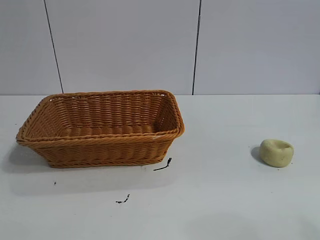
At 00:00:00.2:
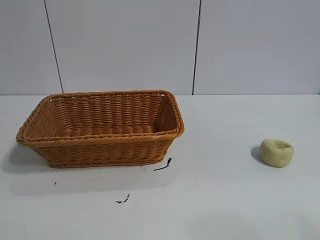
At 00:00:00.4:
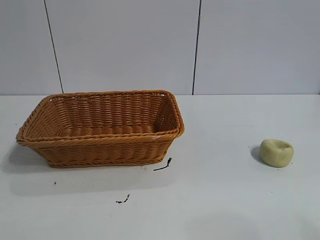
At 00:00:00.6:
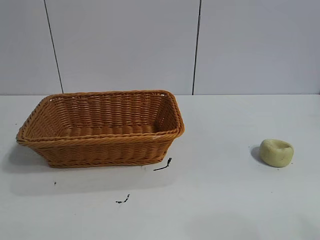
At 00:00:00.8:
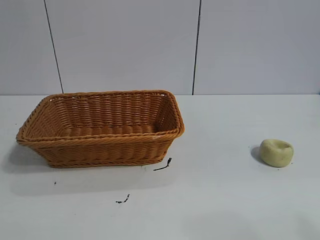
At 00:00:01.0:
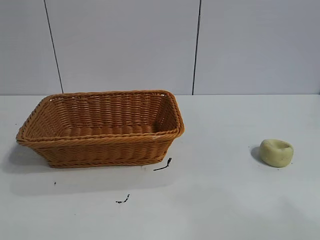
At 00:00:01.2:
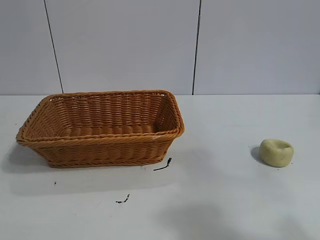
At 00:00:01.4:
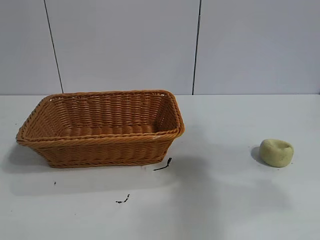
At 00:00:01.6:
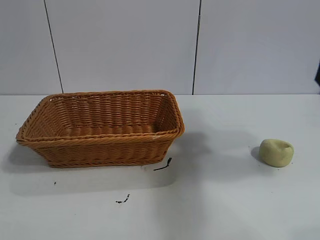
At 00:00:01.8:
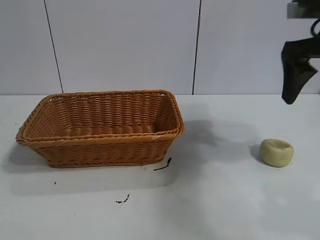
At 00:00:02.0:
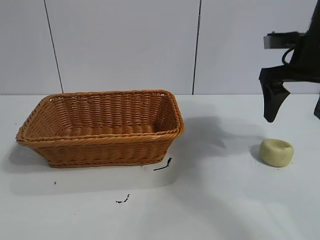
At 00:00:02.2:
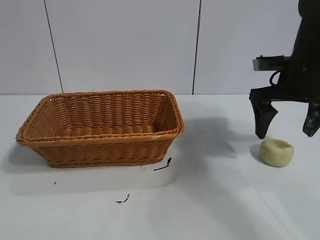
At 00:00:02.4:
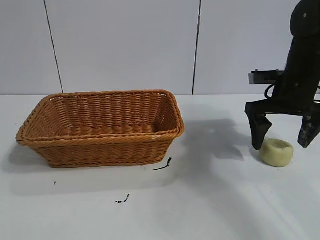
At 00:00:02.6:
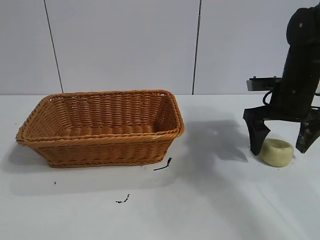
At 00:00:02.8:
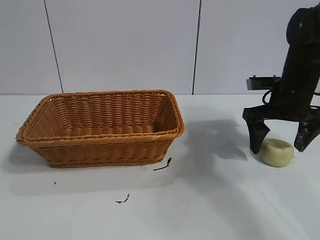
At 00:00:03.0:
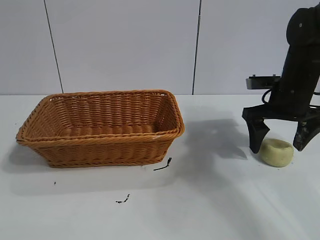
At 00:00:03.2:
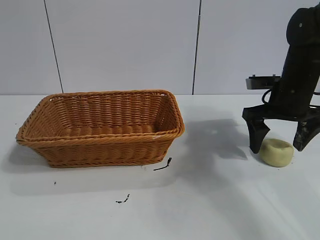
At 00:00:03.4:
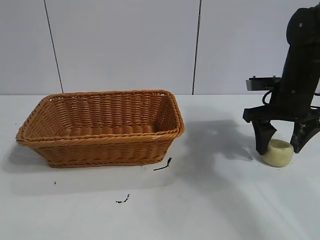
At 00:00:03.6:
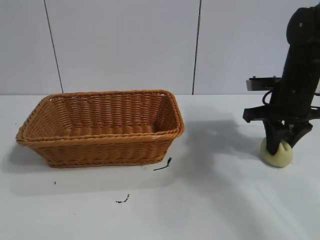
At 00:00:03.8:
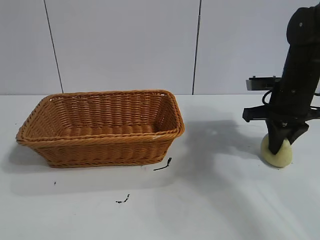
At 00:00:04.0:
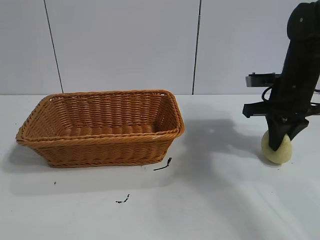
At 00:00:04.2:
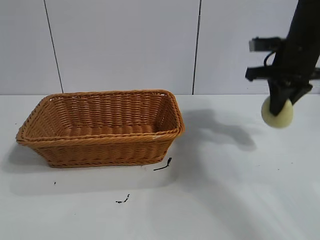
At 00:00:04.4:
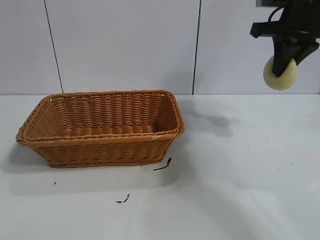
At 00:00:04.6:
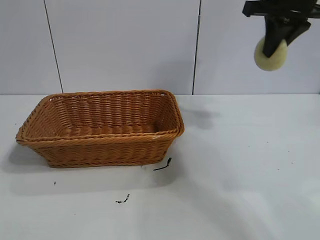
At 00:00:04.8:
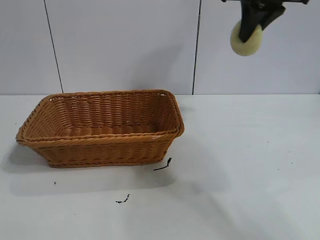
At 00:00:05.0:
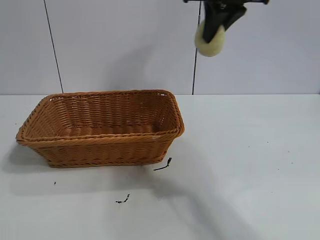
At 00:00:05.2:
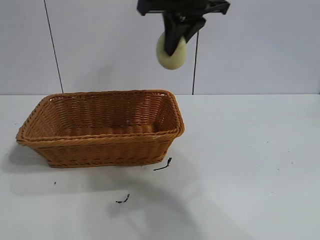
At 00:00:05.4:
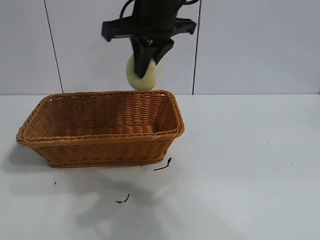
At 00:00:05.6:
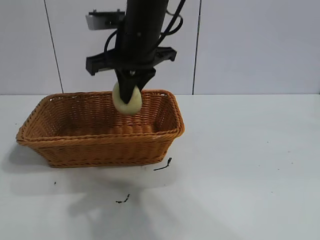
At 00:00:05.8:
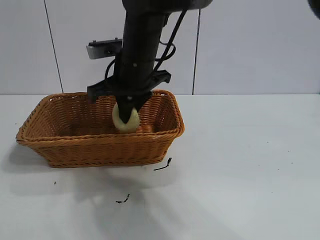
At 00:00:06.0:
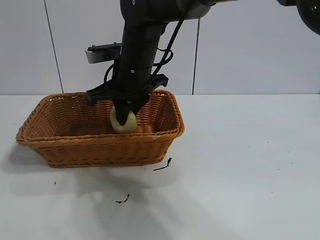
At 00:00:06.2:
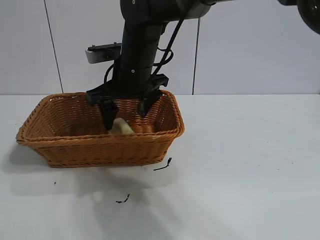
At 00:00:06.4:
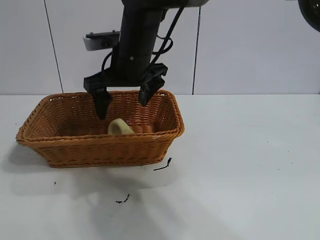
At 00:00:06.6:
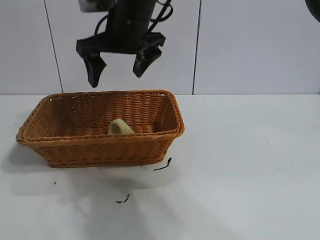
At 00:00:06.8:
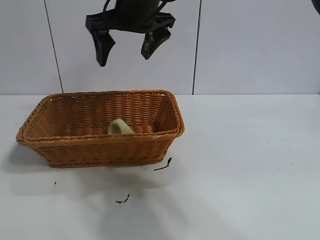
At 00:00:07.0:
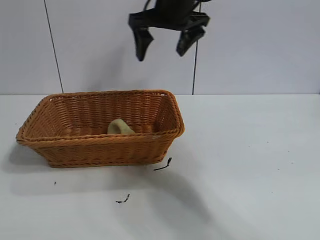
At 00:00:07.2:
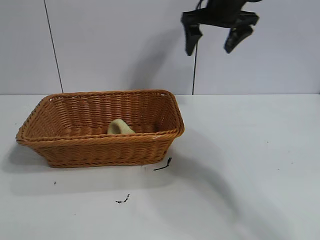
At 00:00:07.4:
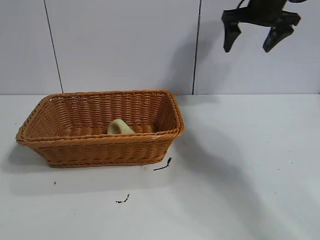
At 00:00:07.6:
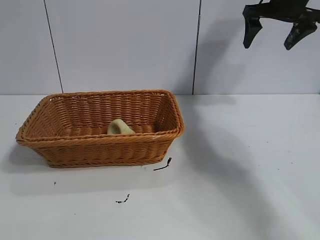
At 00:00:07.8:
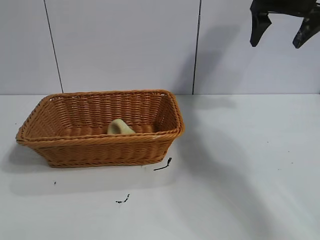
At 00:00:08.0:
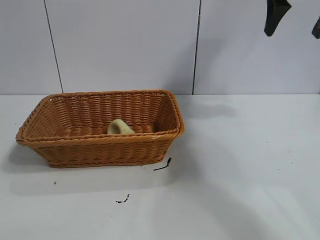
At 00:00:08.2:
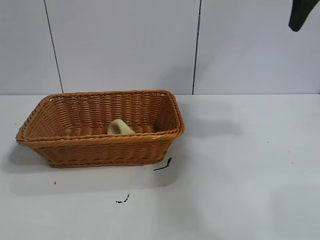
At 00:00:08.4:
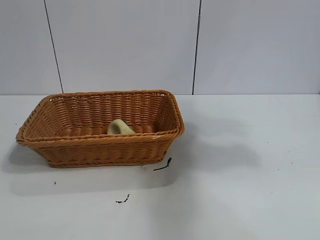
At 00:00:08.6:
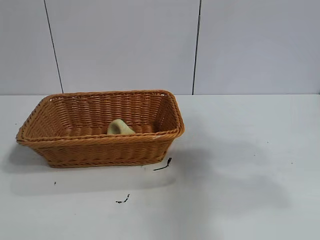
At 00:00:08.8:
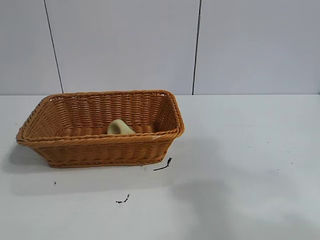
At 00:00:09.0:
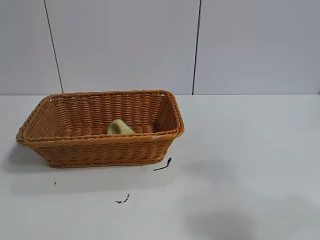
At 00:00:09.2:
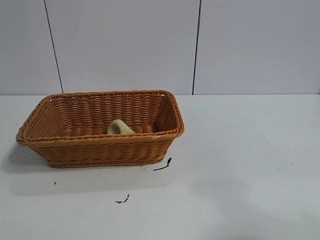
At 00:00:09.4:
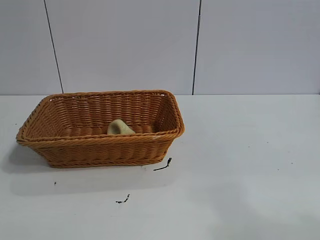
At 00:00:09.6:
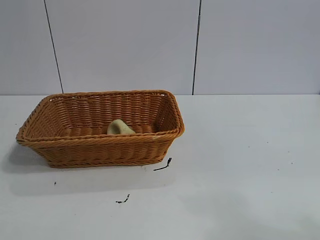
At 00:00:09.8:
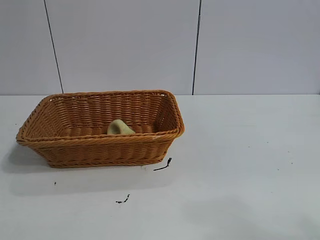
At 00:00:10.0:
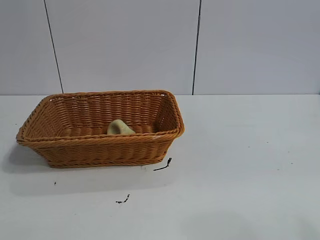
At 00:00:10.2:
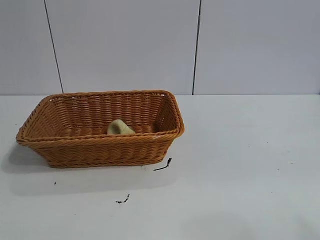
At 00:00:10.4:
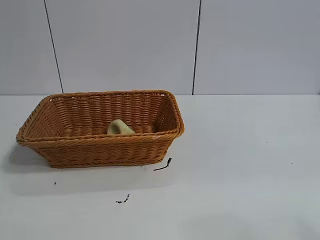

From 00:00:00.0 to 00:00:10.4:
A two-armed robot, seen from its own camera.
Task of the whole recording: pick up the egg yolk pastry and put it into the basket.
Step, from 00:00:00.8 to 00:00:03.4: Grasp egg yolk pastry with right gripper.
Step, from 00:00:03.8 to 00:00:06.2: Place the egg yolk pastry in the basket with right gripper.

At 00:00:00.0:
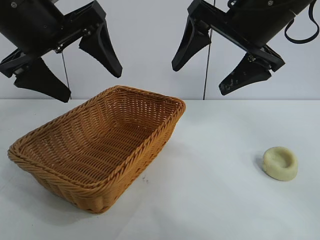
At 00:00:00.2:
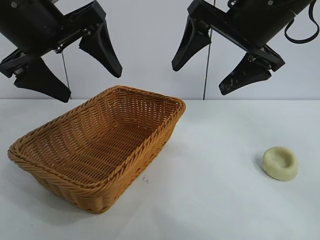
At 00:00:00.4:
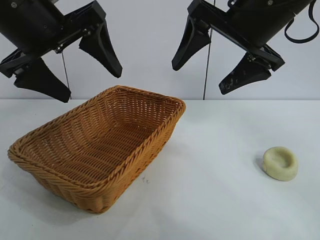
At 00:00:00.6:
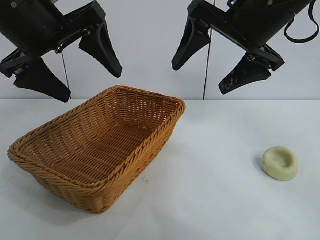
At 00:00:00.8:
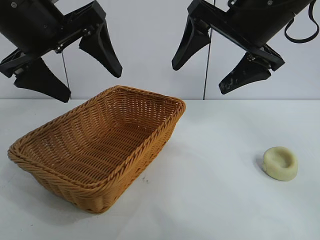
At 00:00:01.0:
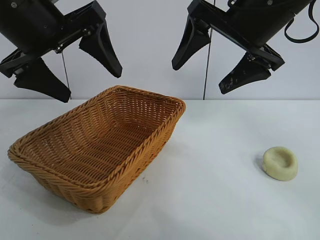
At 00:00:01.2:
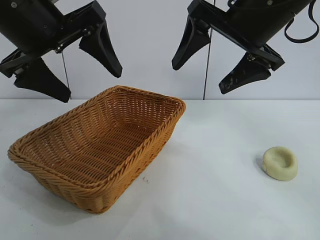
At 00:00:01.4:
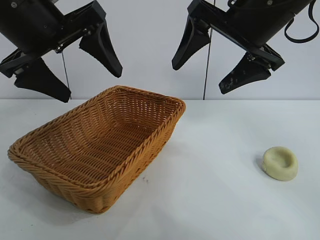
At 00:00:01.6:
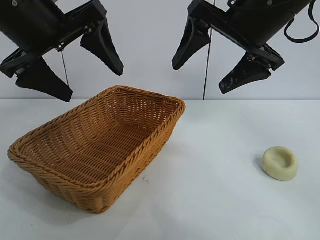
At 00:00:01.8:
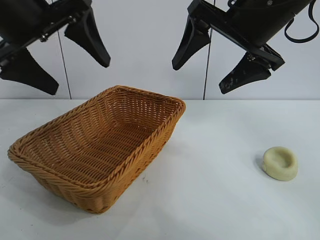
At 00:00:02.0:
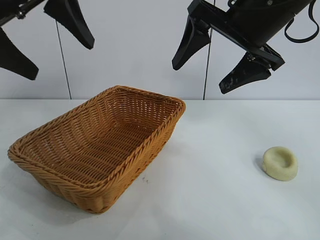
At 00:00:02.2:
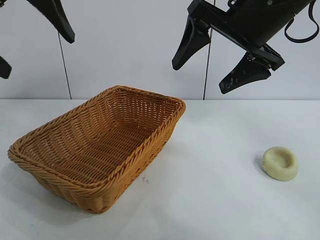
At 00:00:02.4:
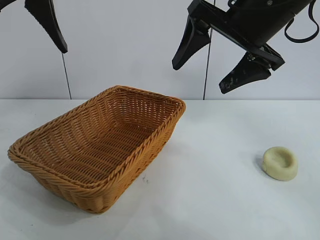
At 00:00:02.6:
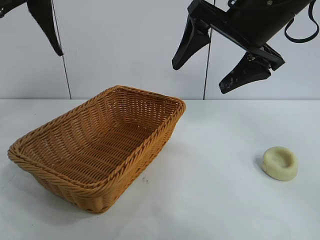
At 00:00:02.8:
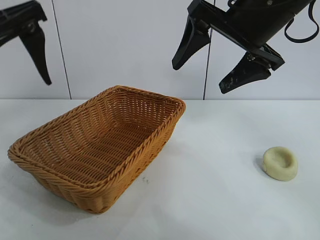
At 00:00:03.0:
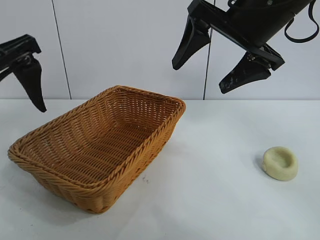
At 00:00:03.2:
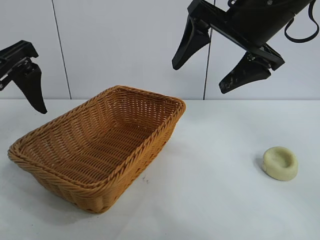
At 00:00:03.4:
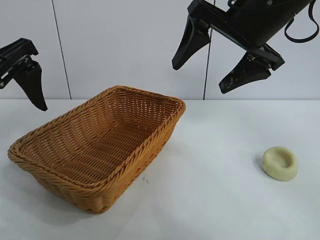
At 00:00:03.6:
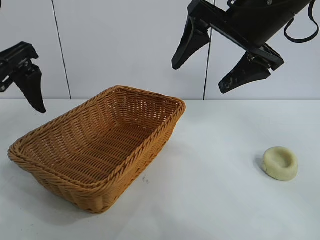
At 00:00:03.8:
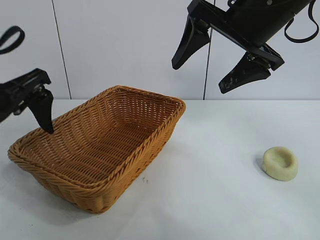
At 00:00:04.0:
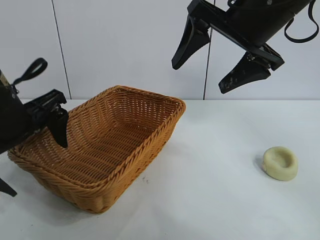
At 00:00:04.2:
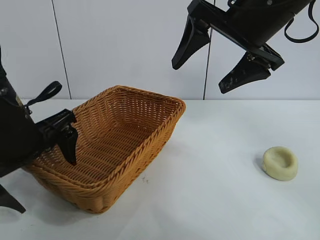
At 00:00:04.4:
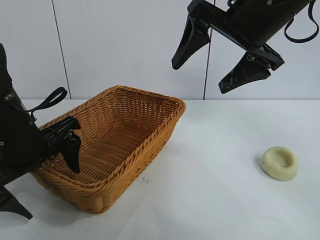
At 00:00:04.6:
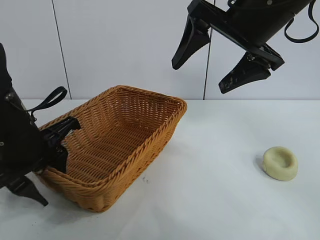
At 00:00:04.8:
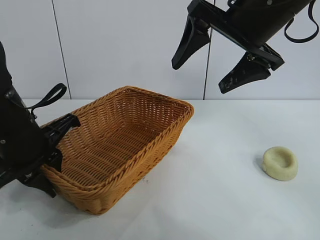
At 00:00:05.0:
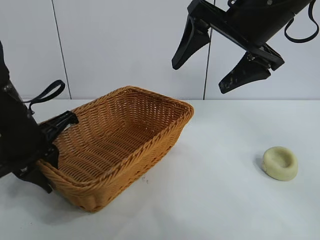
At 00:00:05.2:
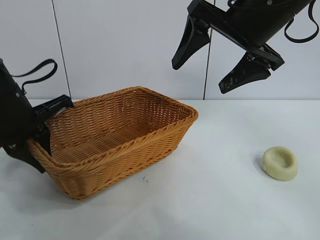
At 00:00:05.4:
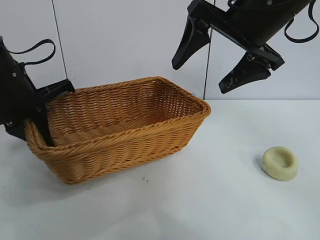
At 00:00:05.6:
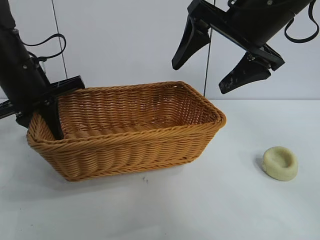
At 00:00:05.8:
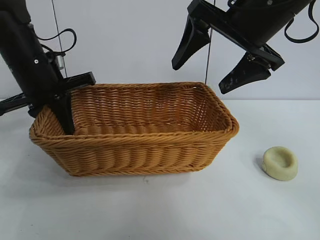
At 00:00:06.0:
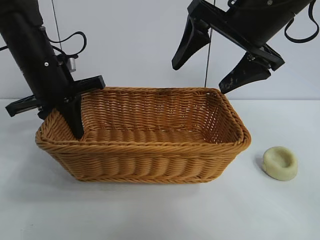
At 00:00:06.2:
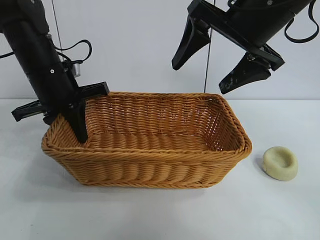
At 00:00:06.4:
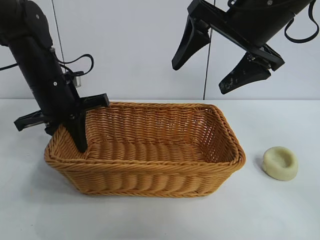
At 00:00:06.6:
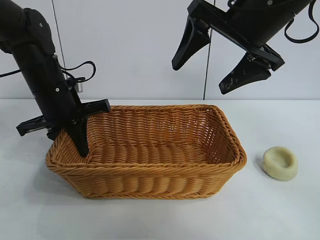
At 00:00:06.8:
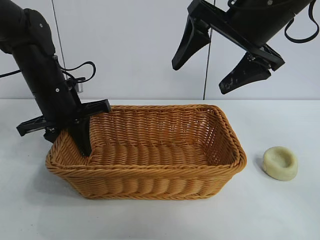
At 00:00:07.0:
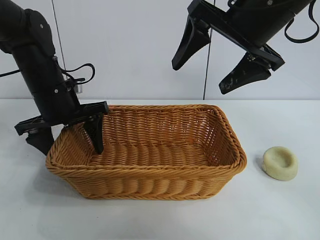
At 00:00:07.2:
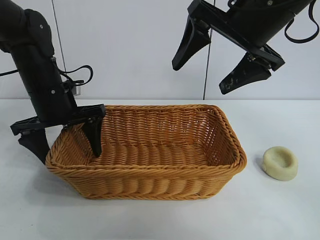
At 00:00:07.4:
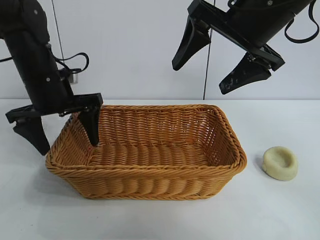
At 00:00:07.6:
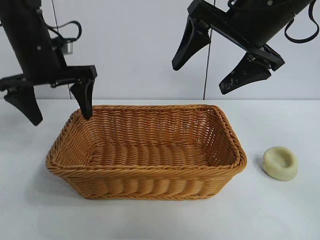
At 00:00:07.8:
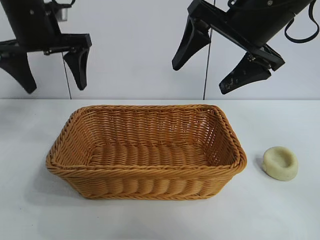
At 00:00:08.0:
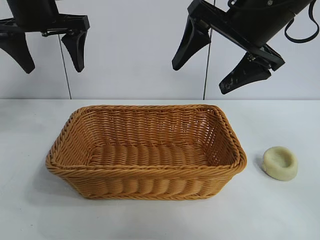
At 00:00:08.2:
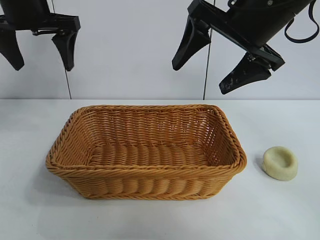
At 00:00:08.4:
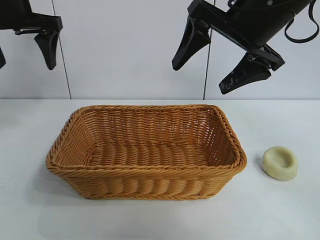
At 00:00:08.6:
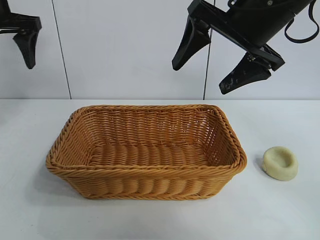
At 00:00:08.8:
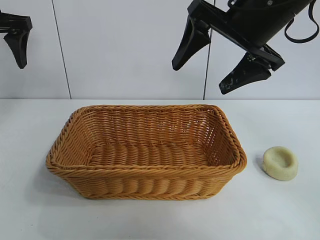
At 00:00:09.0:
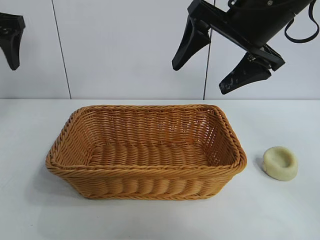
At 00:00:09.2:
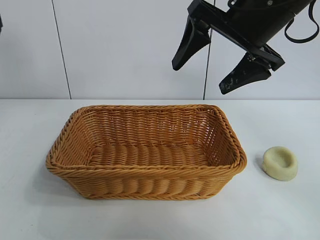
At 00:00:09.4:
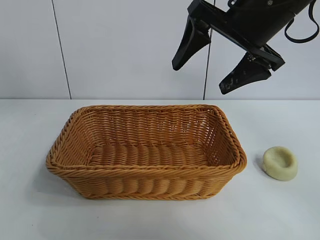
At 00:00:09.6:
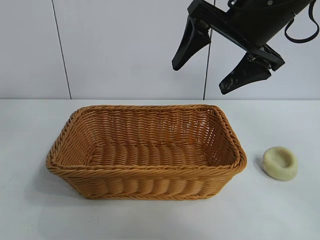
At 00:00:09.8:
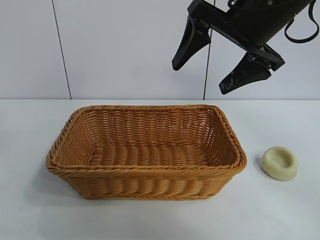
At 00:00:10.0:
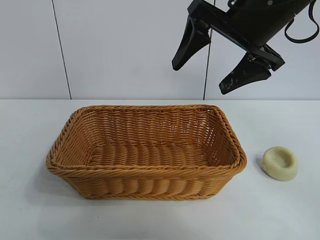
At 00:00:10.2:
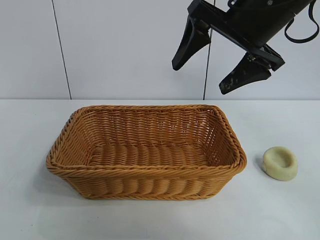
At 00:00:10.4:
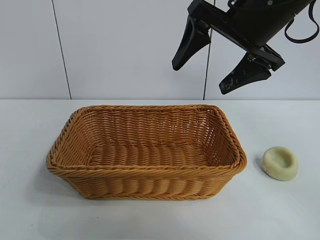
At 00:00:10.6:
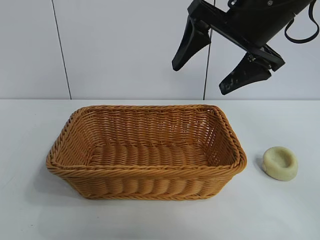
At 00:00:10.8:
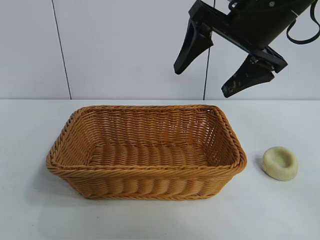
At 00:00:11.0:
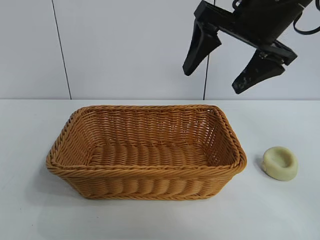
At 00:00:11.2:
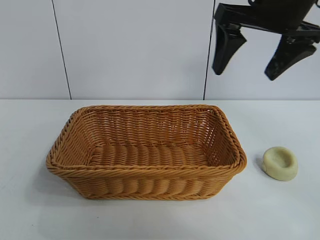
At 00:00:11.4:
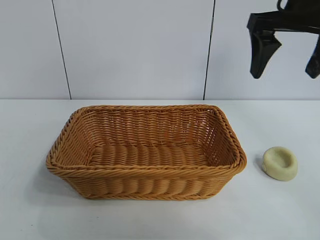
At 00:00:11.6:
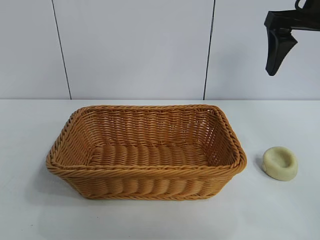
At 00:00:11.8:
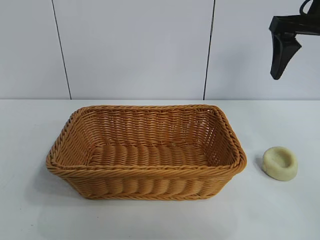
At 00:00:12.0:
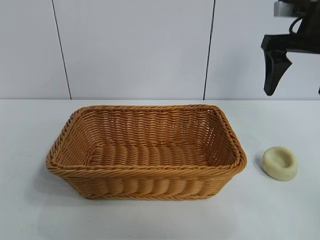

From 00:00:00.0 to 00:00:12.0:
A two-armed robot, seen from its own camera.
Task of the whole recording: pick up the egg yolk pastry and put it into the basket.
Step, from 00:00:01.4 to 00:00:04.6: Grasp the basket with left gripper.
Step, from 00:00:05.0 to 00:00:07.0: Place the basket in the center of view with left gripper.
